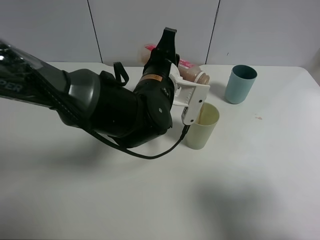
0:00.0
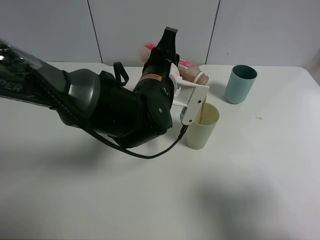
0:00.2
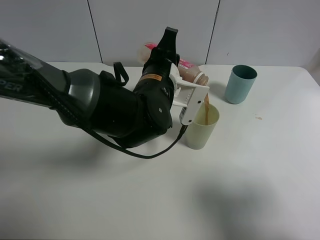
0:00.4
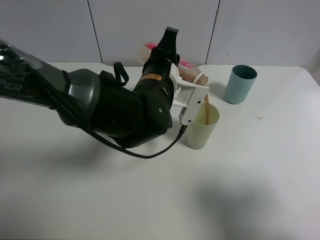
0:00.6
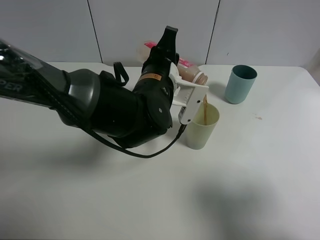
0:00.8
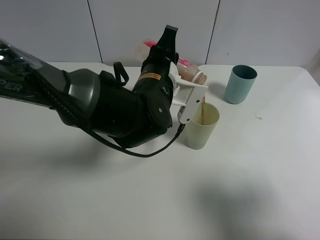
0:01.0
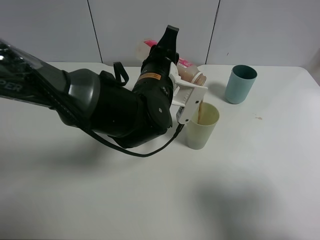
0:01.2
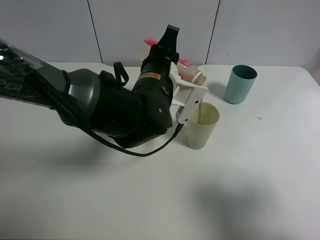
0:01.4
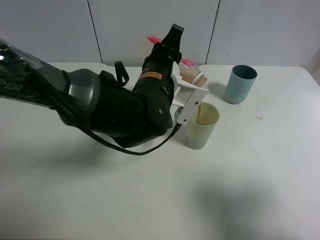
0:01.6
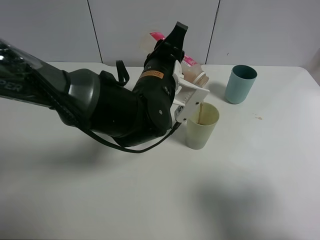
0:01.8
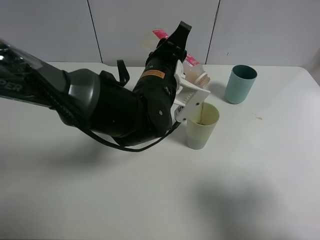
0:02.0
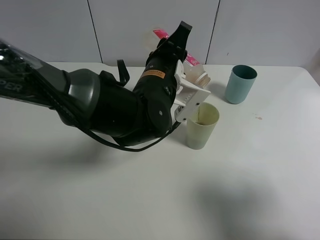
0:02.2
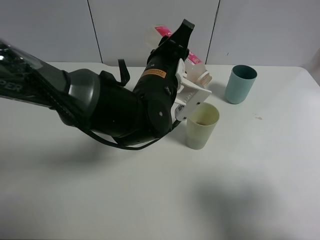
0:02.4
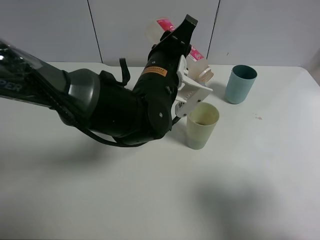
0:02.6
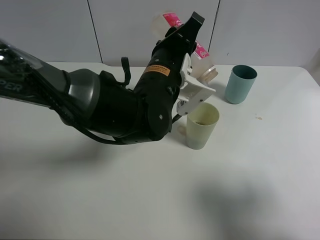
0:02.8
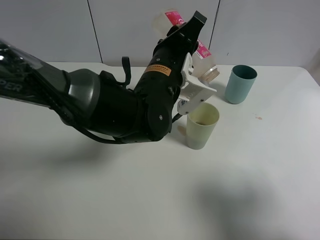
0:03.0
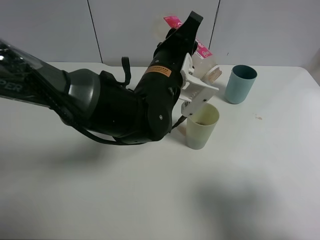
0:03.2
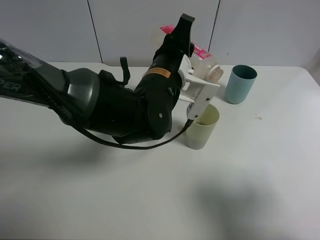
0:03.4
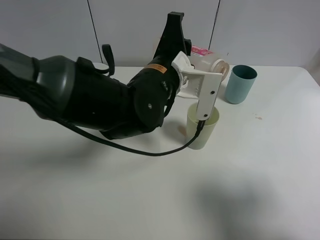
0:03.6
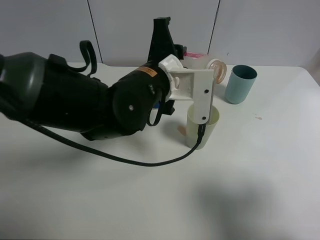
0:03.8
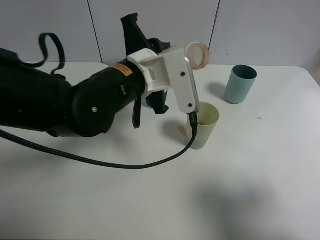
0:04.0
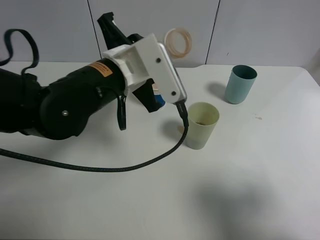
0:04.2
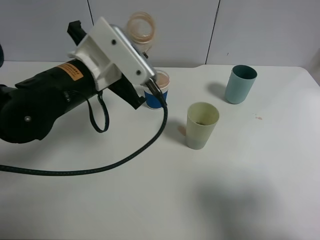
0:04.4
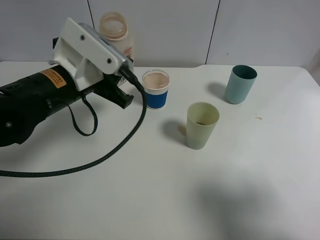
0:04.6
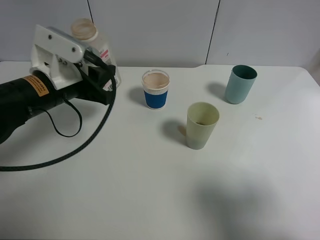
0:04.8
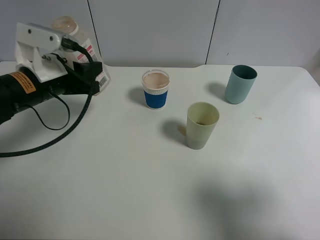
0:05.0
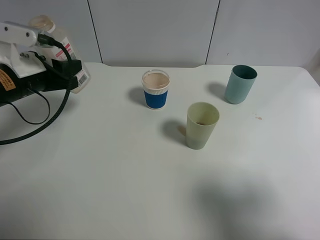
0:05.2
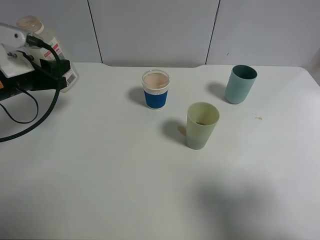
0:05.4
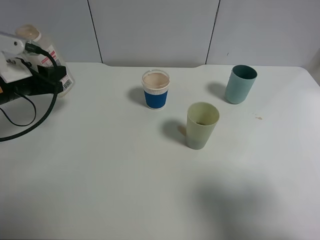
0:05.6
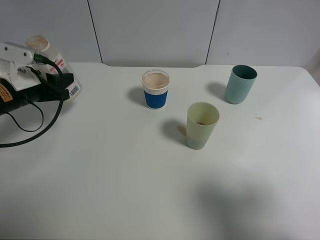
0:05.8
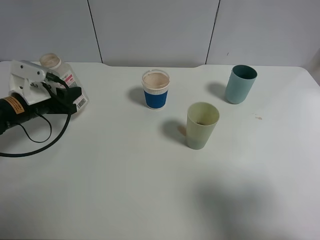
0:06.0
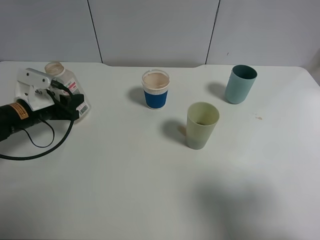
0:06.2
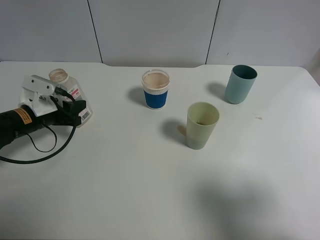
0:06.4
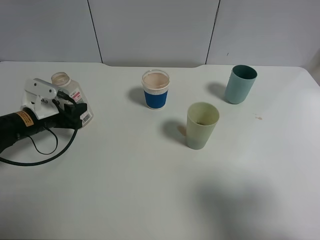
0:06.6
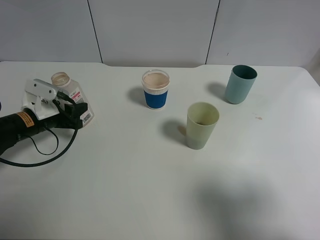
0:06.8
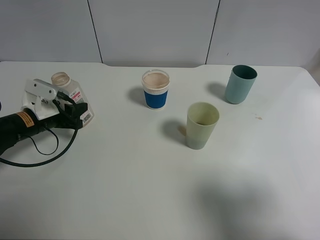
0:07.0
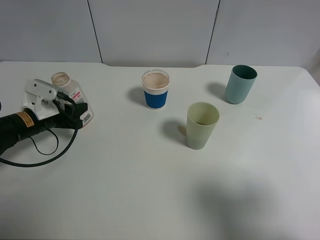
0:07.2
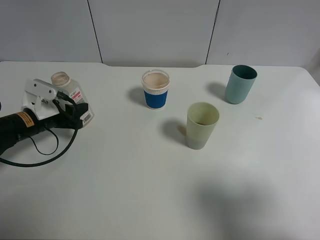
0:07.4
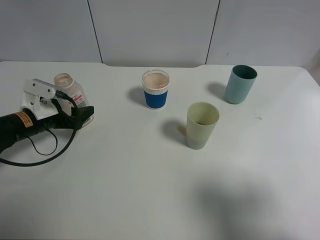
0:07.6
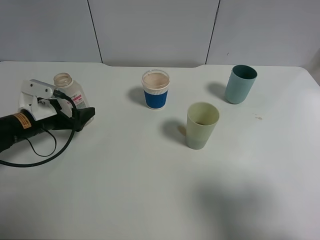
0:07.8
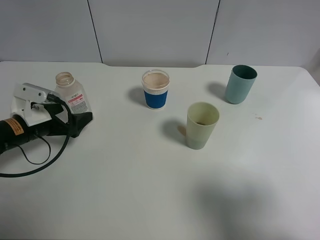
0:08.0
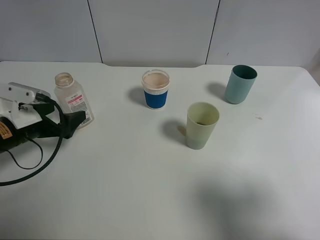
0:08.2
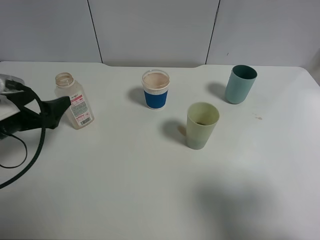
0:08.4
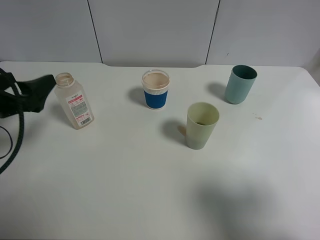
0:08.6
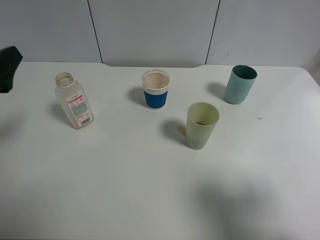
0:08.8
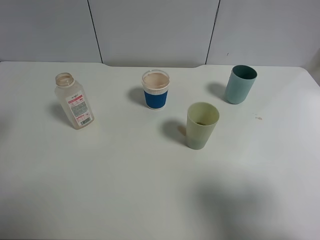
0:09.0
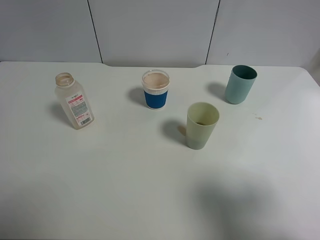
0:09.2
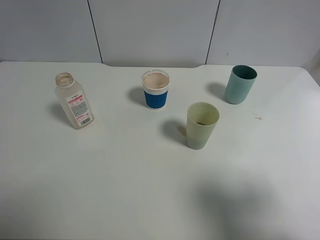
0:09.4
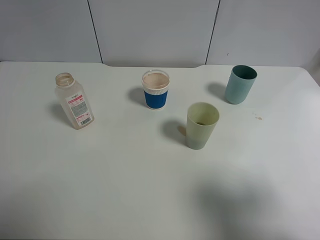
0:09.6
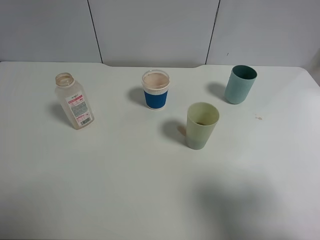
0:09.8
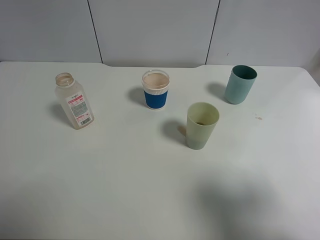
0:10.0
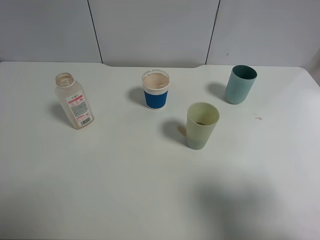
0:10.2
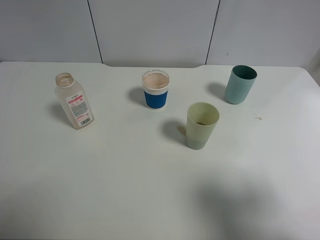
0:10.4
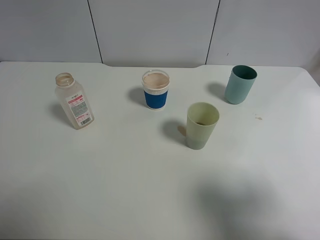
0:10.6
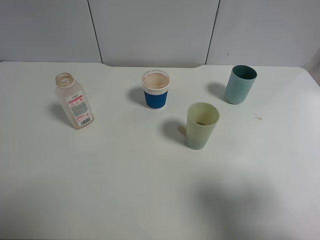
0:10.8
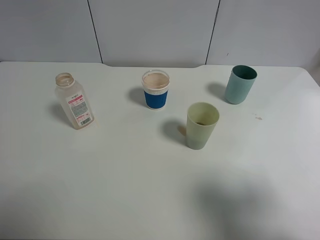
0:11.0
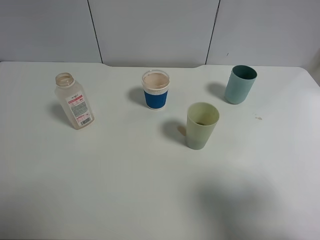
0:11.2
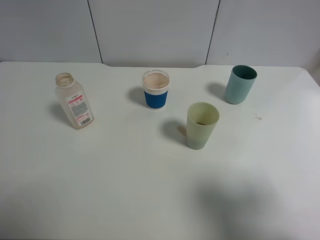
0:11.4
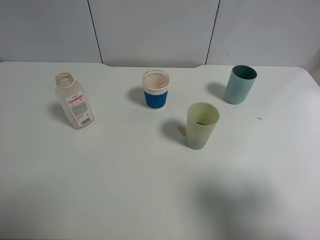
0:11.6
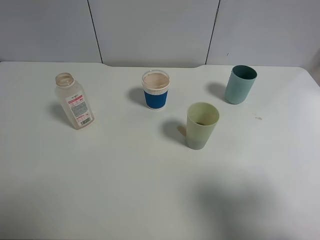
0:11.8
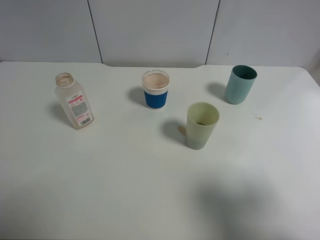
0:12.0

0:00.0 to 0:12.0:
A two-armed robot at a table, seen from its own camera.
Task of the whole recording: use a clamp to hold the bottle of the drink, pour the beverage into a random cup, then clamp the cup containing the drink and pour the drink into another random cup.
Step, 0:00.0 to 0:03.8: Pour the drink into the green plastic cup with left gripper.
Step, 0:04.0 to 0:07.8: Place the drink bottle on the table with left gripper.
0:00.0 to 0:01.6: The grippers make only small movements.
0:01.6 to 0:03.0: The grippers stay close to where they were, moving slightly.
0:03.0 to 0:04.4: The left gripper heads to the left, covering some 10 cm.
0:04.4 to 0:06.0: The left gripper is displaced to the left and downward by approximately 20 cm.
0:06.0 to 0:07.6: The left gripper opens its fingers.
0:07.6 to 0:09.0: The left gripper heads upward and backward, covering some 20 cm.

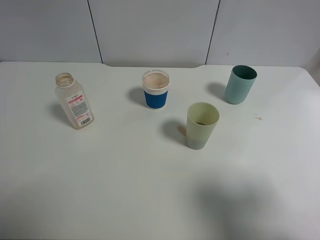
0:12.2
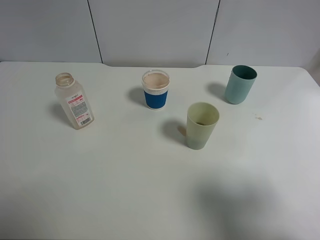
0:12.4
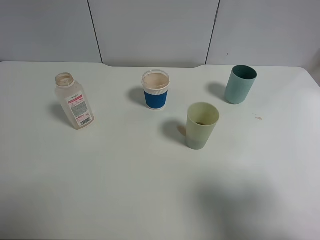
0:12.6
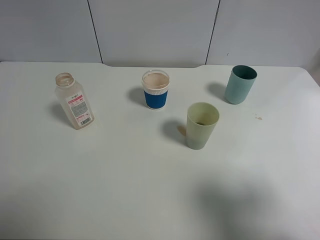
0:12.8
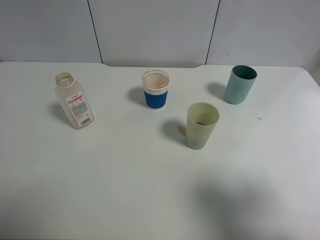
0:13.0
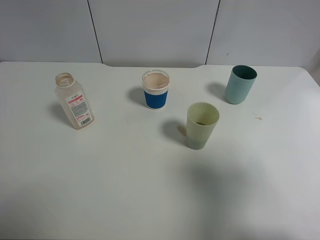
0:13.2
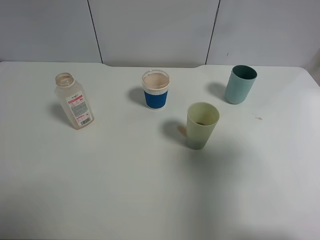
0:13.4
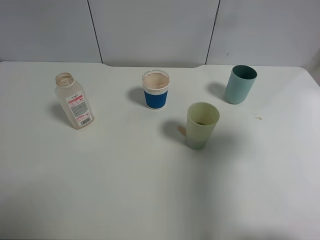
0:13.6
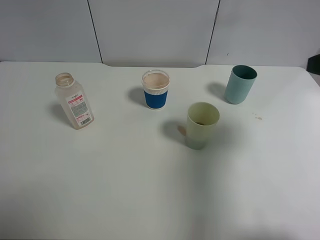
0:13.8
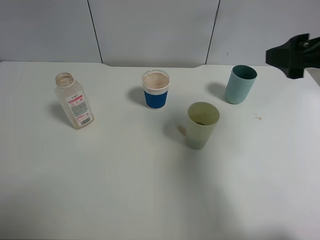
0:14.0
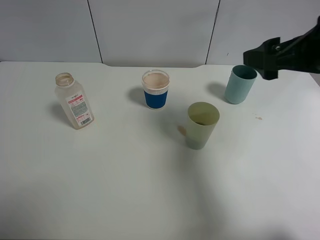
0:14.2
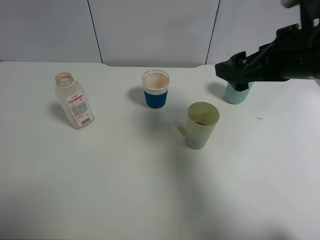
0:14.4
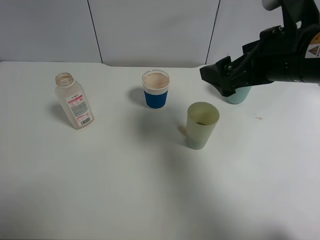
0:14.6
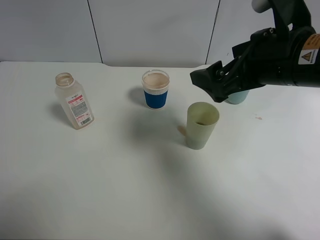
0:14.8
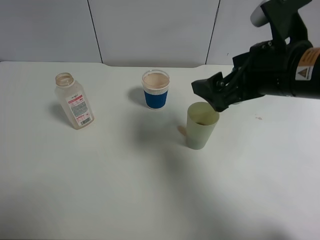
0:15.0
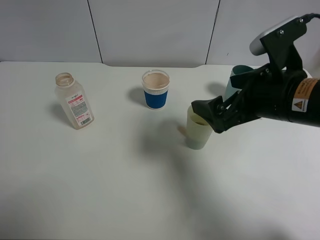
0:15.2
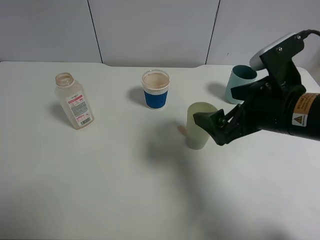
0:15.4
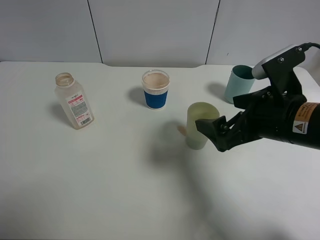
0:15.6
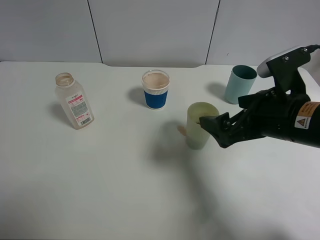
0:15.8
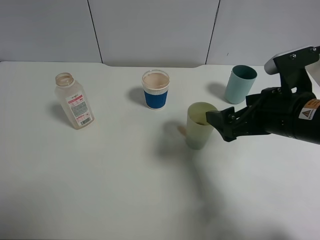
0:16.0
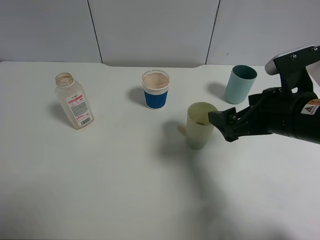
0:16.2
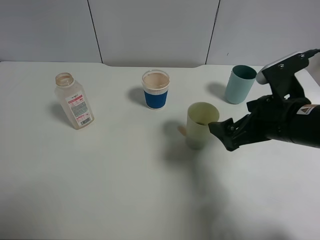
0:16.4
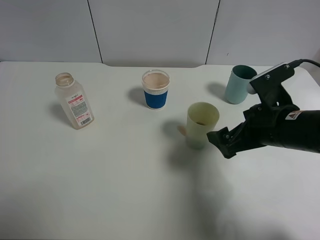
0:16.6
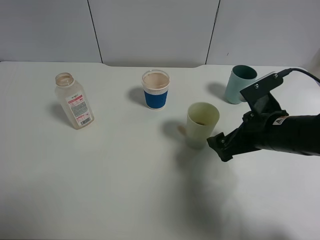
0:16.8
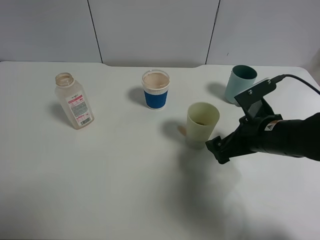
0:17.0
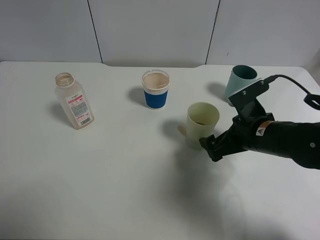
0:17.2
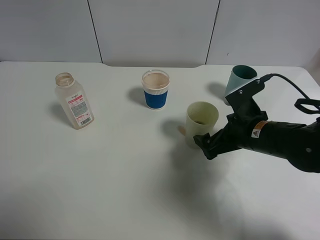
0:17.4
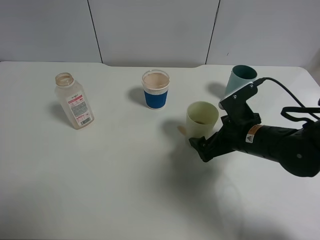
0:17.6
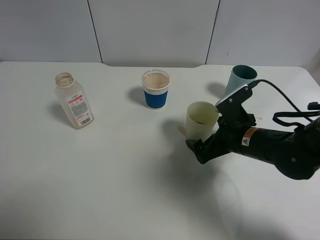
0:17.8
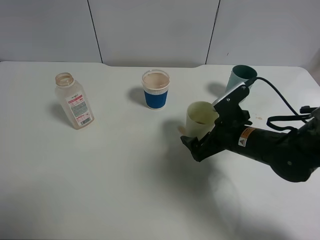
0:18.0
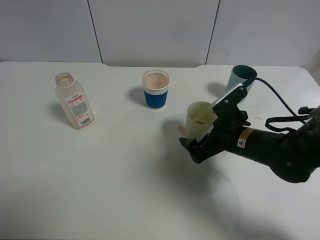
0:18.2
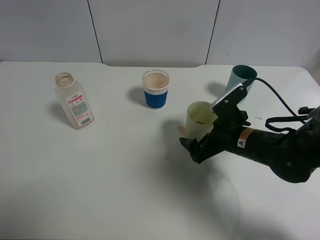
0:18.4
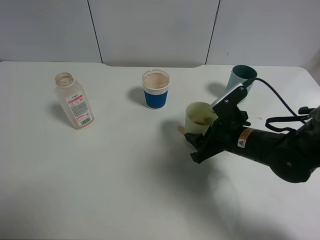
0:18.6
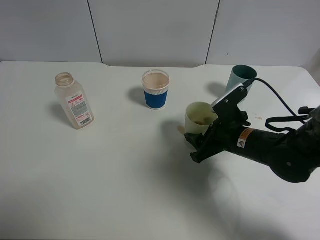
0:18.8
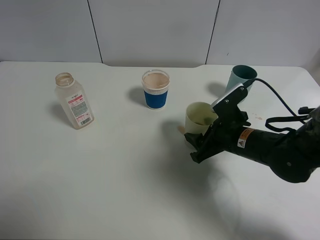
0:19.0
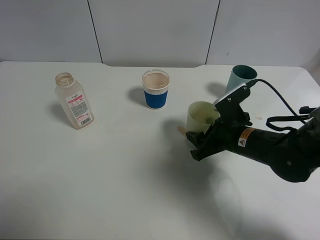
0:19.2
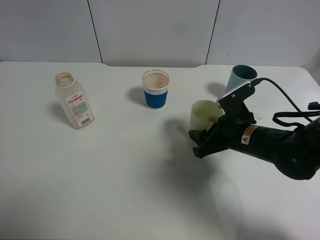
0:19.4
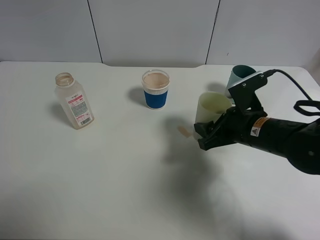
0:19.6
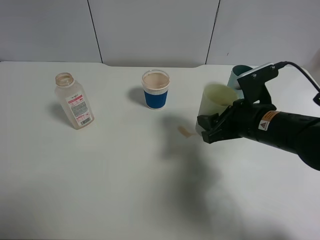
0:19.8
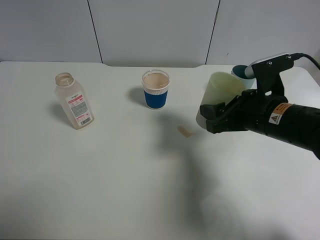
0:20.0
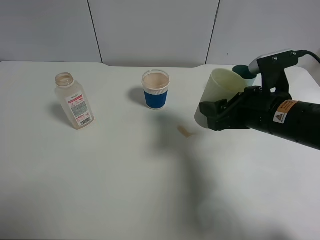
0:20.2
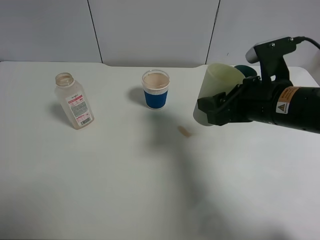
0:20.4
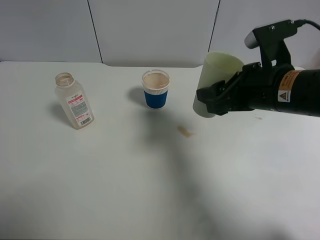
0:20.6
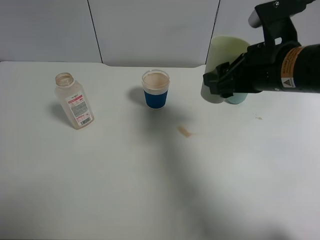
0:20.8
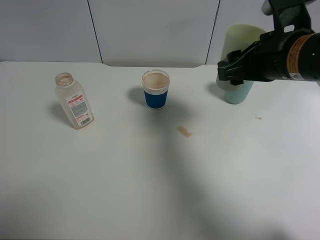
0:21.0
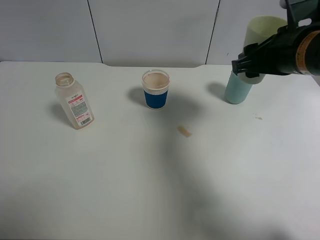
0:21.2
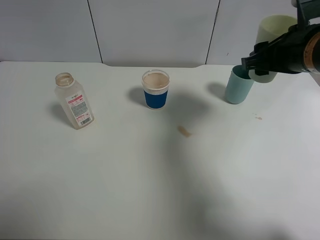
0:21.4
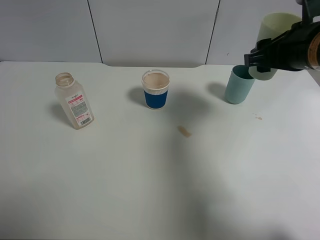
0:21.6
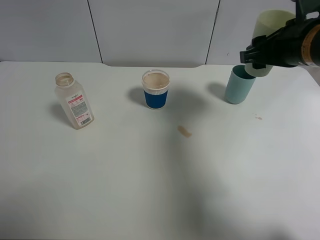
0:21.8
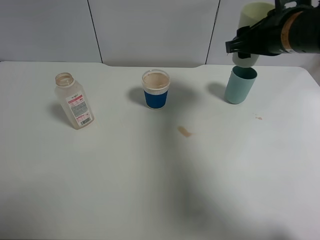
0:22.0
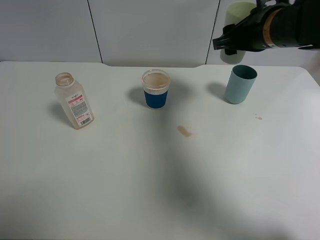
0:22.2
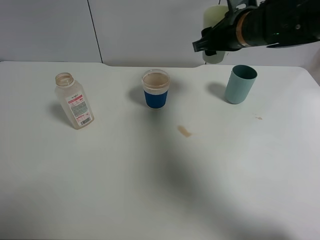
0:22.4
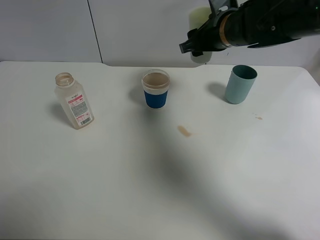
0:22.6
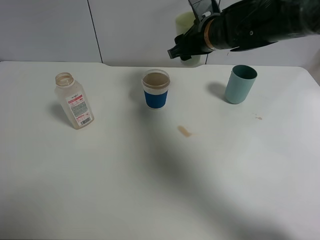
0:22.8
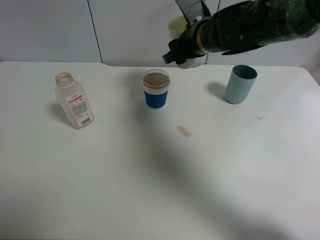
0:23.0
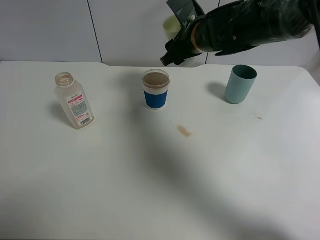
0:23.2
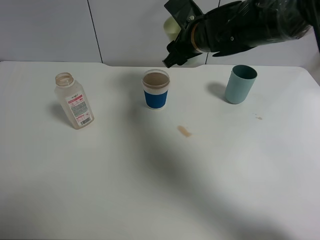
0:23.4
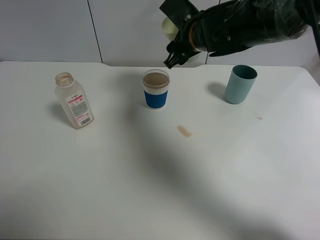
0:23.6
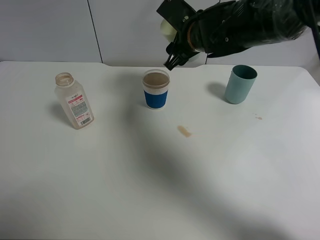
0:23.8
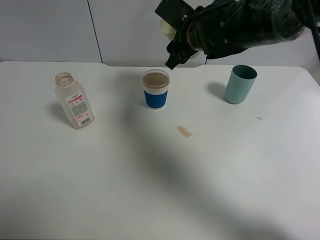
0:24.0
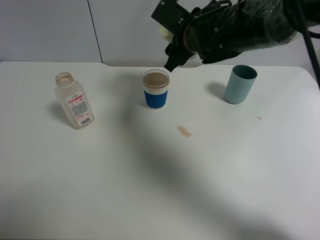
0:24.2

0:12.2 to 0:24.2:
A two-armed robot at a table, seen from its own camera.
Task of the whole recording: use a clamp to hold the bottle of the drink, pour the beverage into a random cup, then clamp the cup containing the drink and pour the drink into another random cup.
Step, 0:12.2 to 0:19.4: Pick up the green plastic cup with right gripper.
0:12.2 to 0:13.8: The right gripper moves forward, approximately 15 cm.
0:13.8 to 0:15.2: The right gripper heads to the left and downward, covering about 15 cm.
0:15.2 to 0:16.6: The right gripper moves downward, some 5 cm.
0:16.6 to 0:18.2: The right gripper moves downward, some 10 cm.
0:18.2 to 0:19.8: The right gripper goes approximately 5 cm upward, and closes.
0:19.8 to 0:21.2: The right gripper heads upward, covering some 10 cm.
0:21.2 to 0:22.6: The right gripper is displaced forward and to the left by about 15 cm.
0:22.6 to 0:24.2: The right gripper goes approximately 5 cm to the left.
